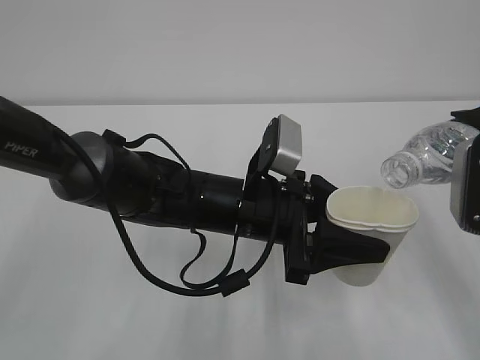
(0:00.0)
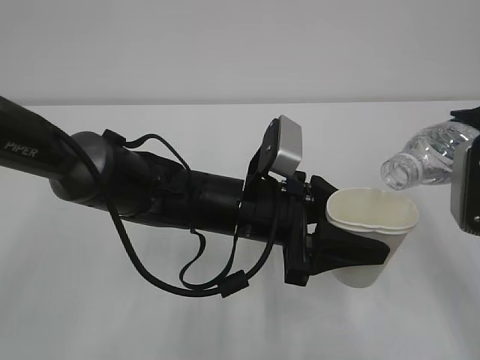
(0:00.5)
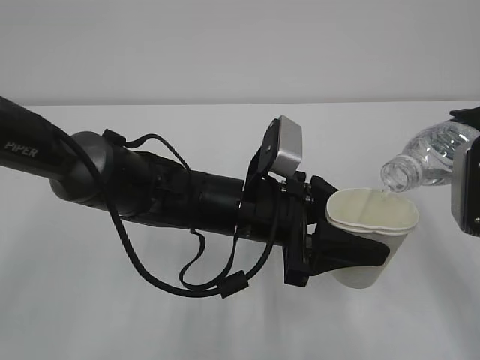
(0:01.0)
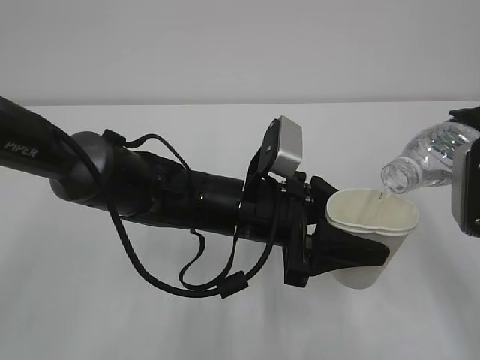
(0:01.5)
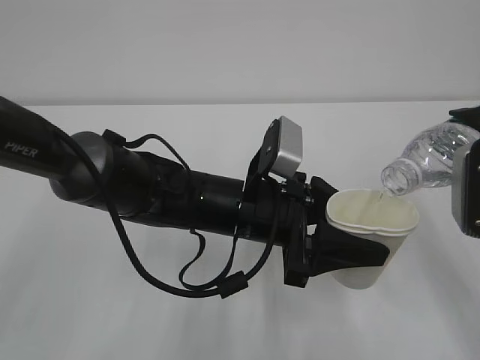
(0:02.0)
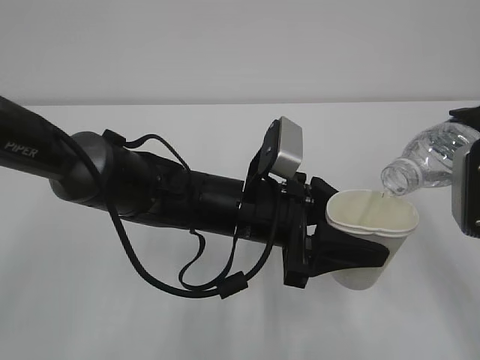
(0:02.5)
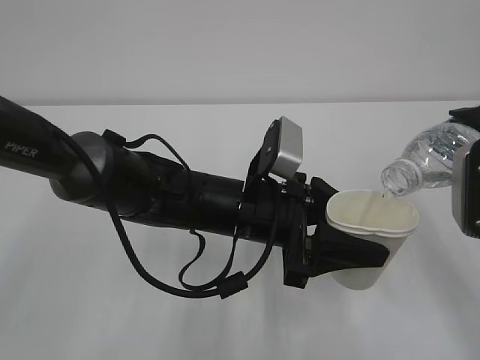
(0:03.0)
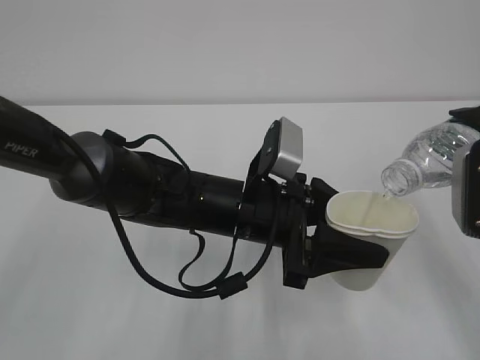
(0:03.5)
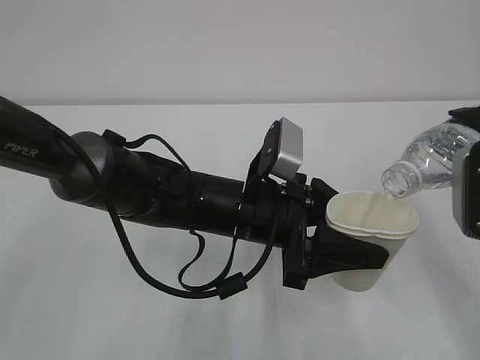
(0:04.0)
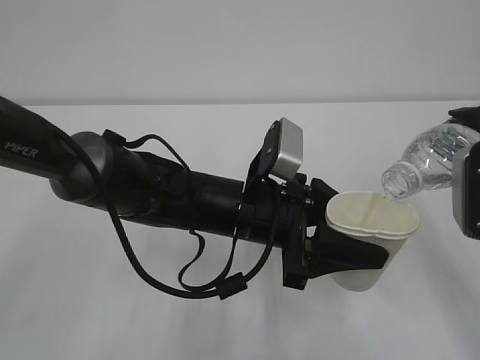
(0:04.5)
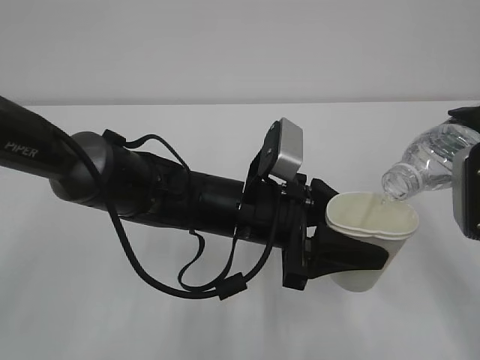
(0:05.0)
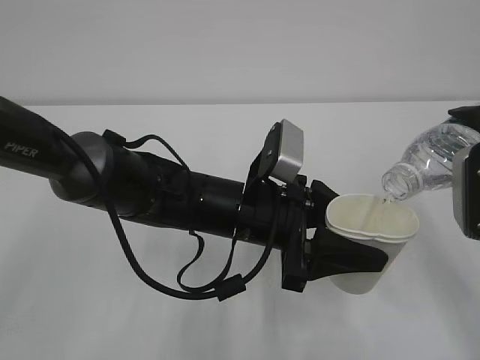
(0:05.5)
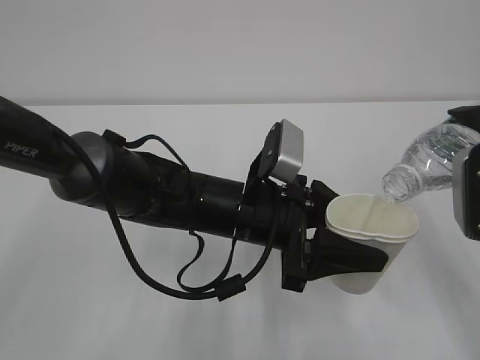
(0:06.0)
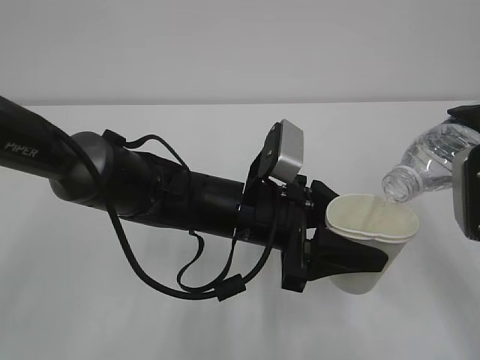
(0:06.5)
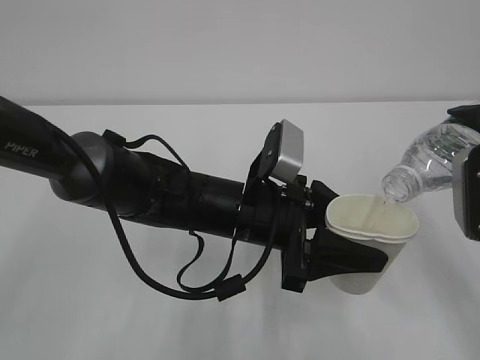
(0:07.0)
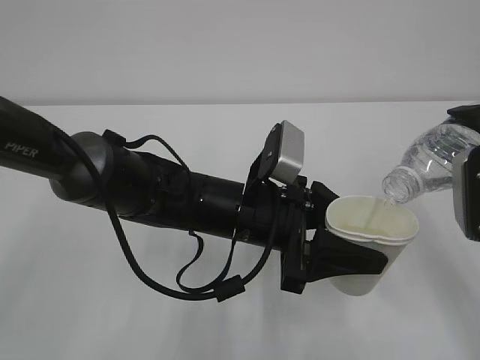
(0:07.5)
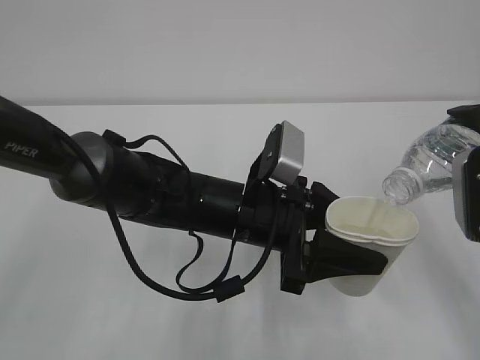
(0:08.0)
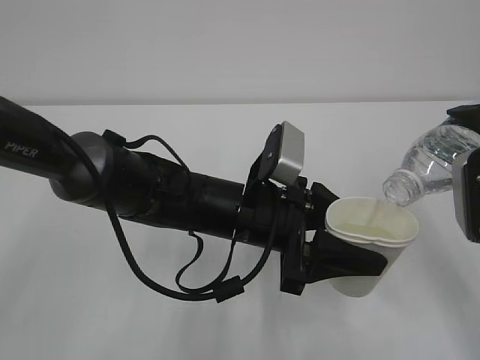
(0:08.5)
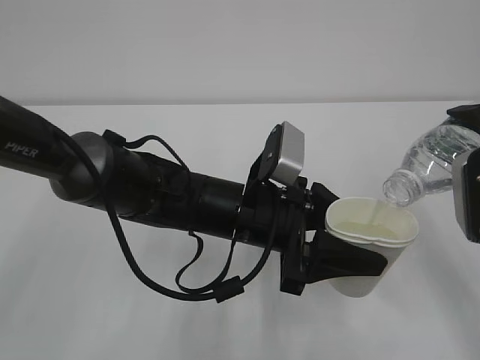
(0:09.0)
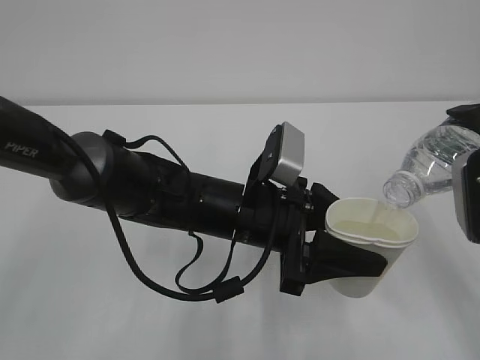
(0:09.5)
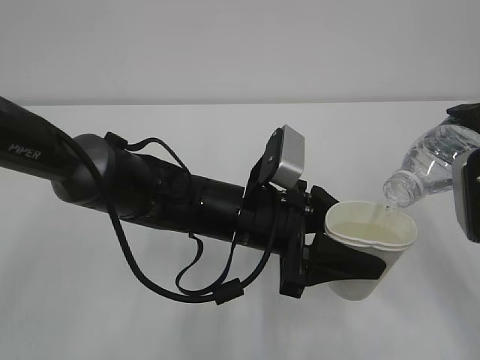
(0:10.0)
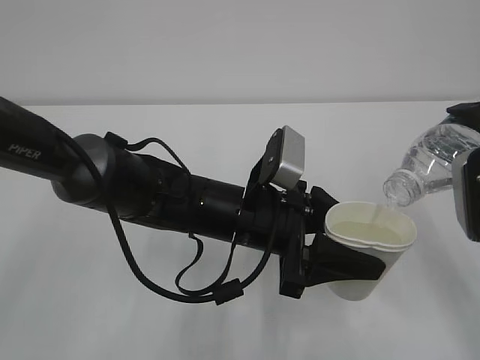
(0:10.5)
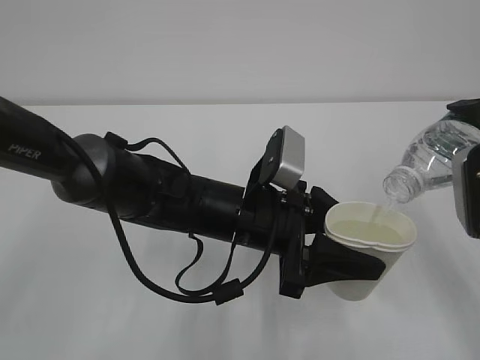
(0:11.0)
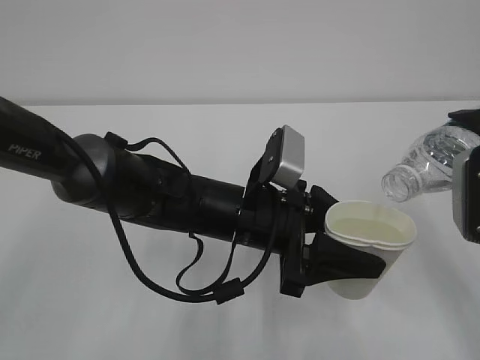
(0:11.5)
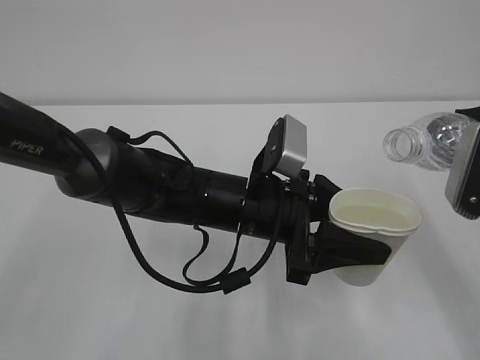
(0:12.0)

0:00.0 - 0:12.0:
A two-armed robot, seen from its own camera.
0:00.0 - 0:02.0: Both grippers stay about where they are.
0:02.0 - 0:06.0: Both grippers stay about where they are.
0:06.0 - 0:10.0: Neither gripper changes place.

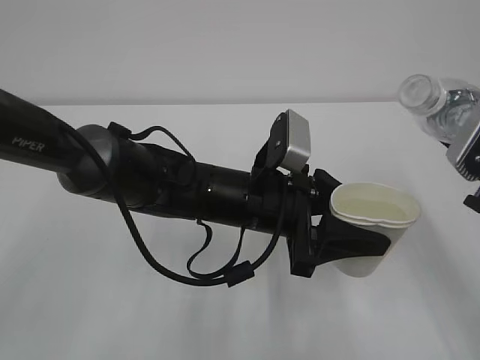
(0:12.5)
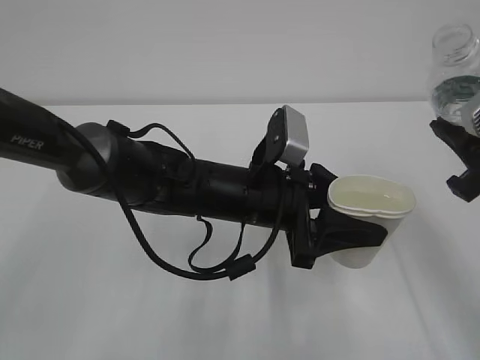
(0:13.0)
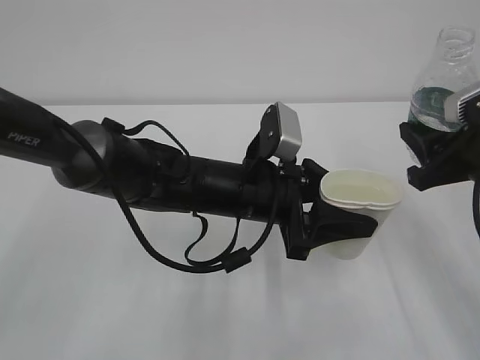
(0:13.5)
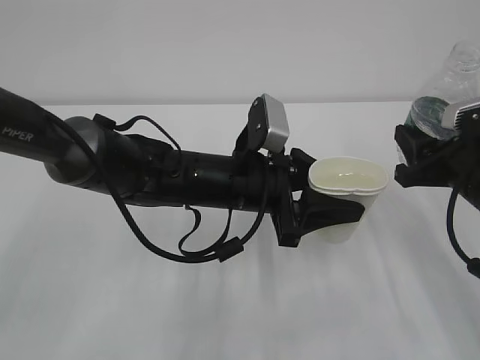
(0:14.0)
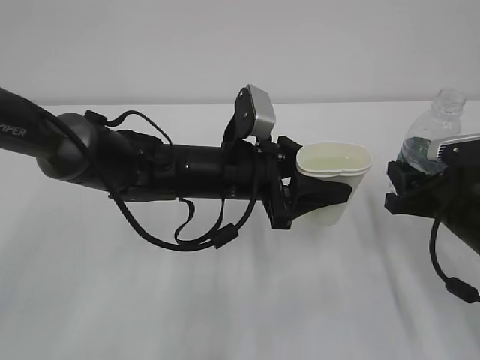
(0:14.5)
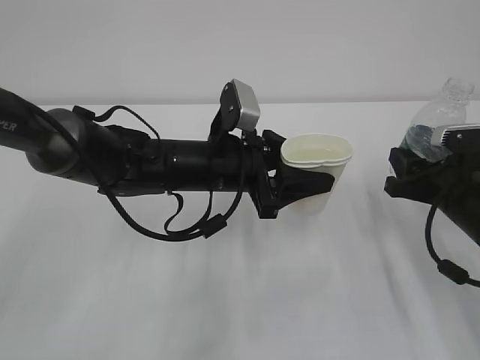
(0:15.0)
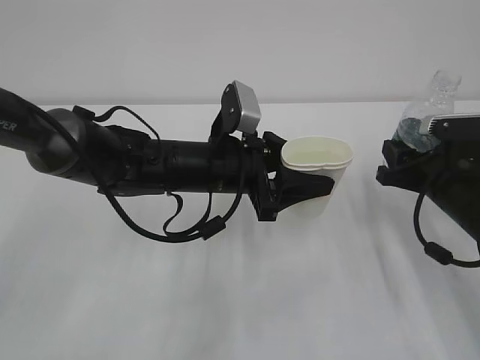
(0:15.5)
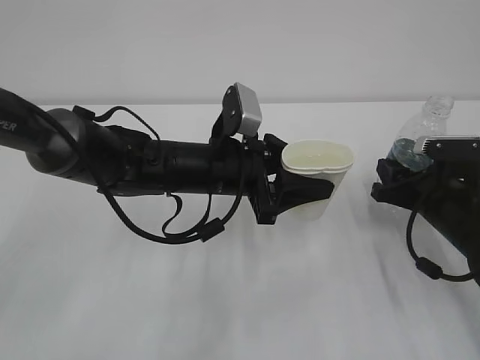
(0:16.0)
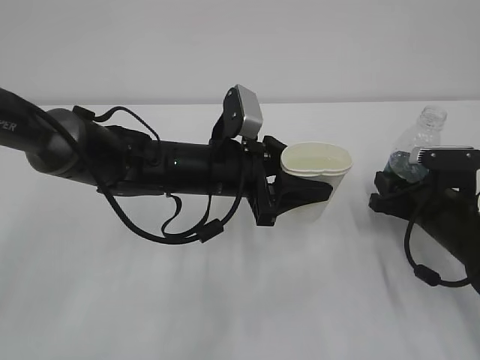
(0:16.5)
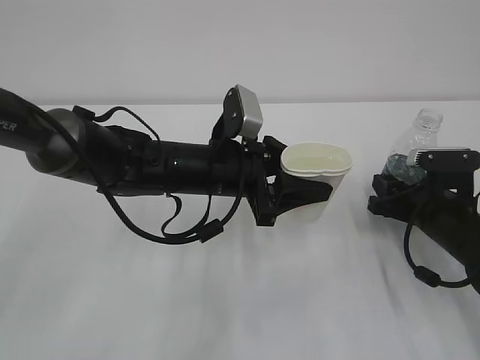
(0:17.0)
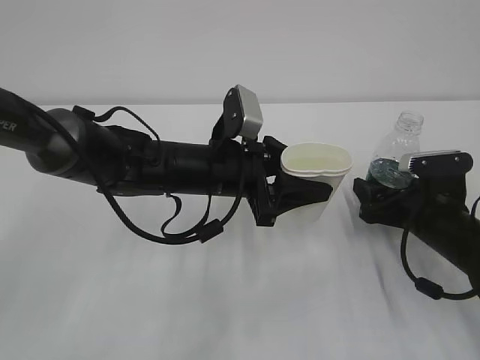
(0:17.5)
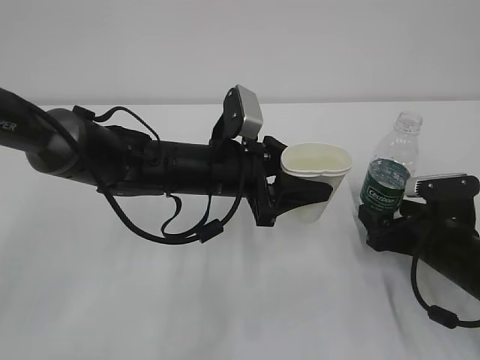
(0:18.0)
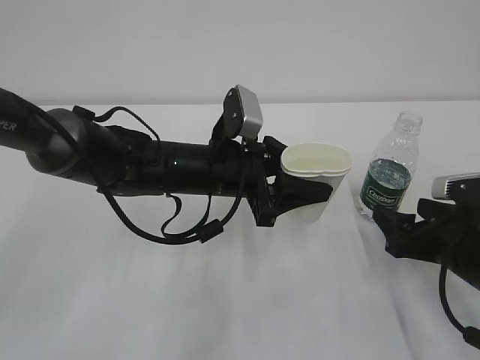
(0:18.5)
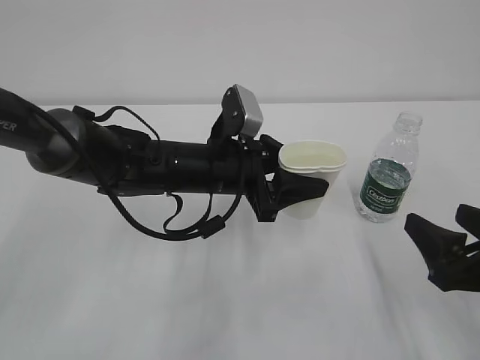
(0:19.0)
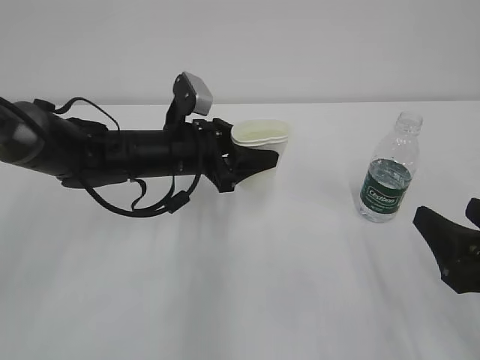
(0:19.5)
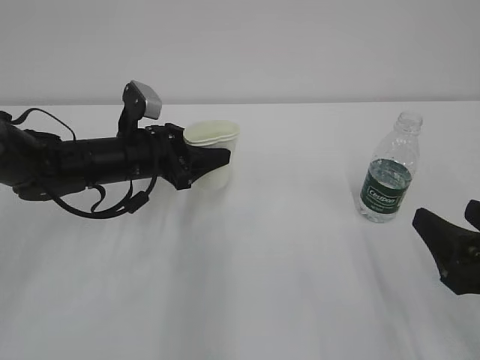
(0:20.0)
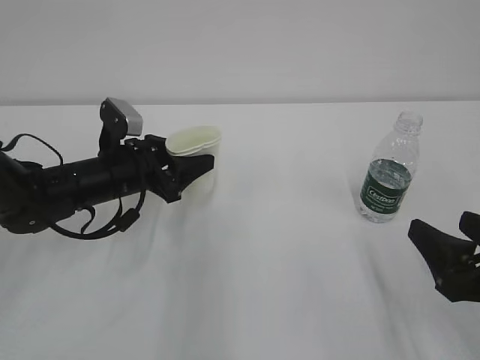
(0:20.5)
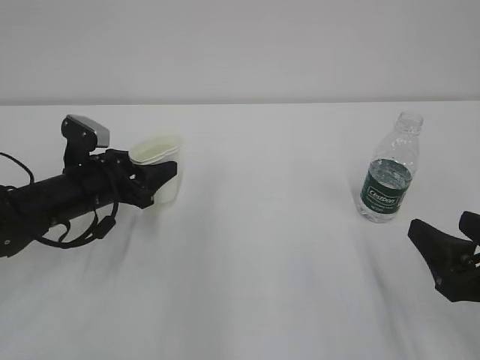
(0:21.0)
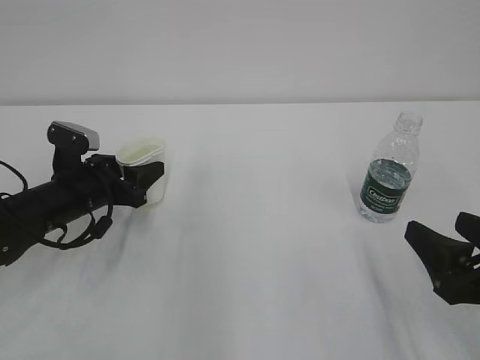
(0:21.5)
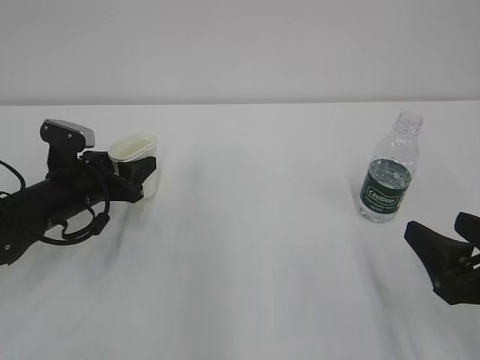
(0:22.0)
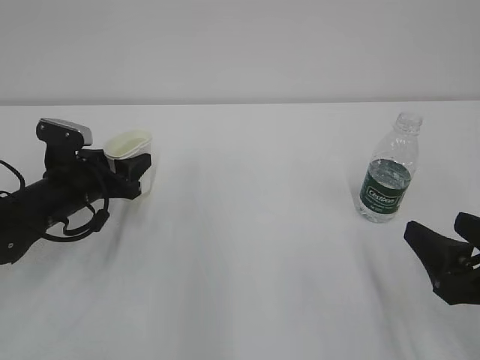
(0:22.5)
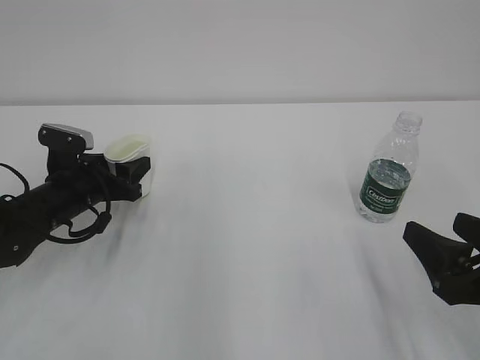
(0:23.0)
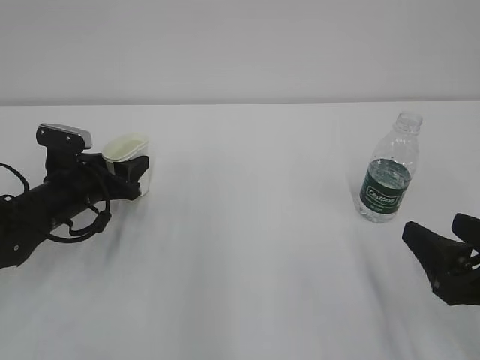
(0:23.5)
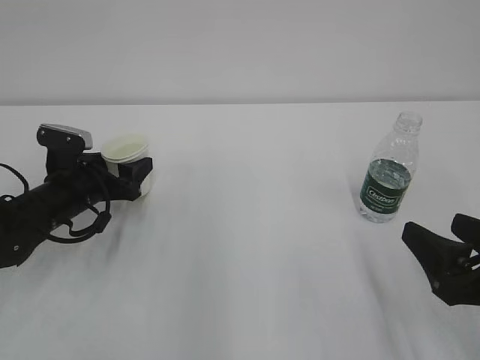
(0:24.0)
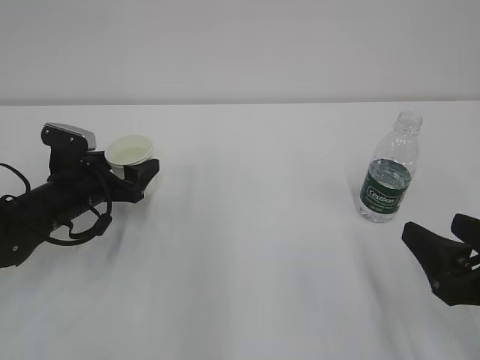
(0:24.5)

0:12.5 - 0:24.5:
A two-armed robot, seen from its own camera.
0:12.5 - 0:14.5: The right gripper moves downward and forward, about 15 cm.
0:14.5 - 0:16.5: The right gripper moves some 5 cm.
0:16.5 - 0:18.5: The right gripper is displaced backward by approximately 5 cm, and opens.
0:18.5 - 0:20.5: The right gripper is displaced backward and upward by about 10 cm. The left gripper travels to the left by about 15 cm.
0:20.5 - 0:22.5: The left gripper goes approximately 5 cm to the left.
0:22.5 - 0:24.5: The left gripper opens.

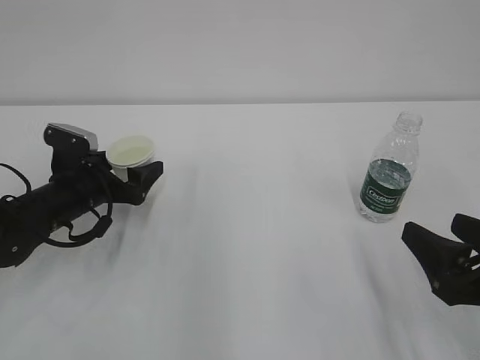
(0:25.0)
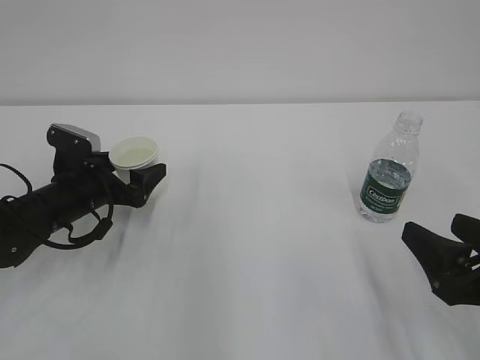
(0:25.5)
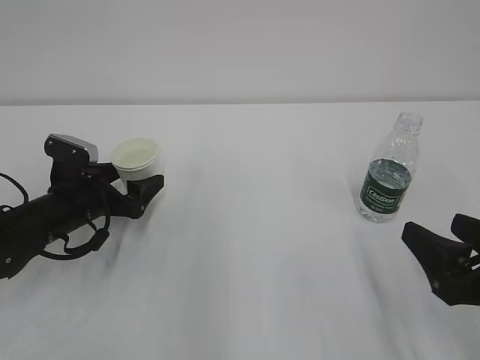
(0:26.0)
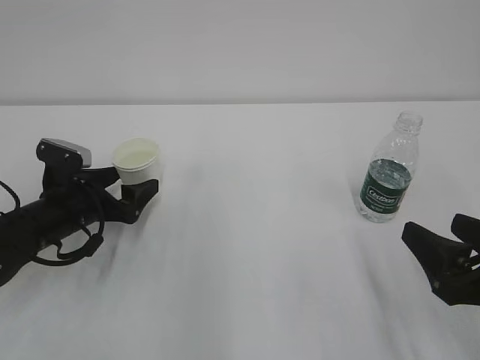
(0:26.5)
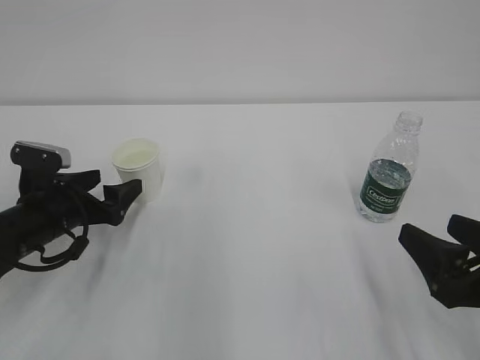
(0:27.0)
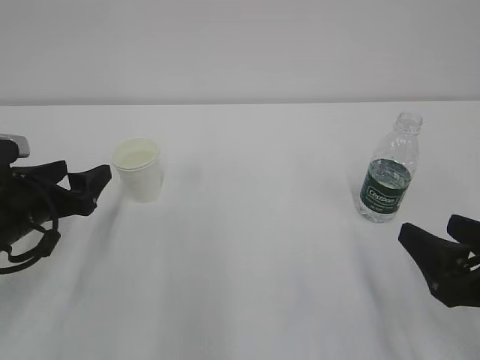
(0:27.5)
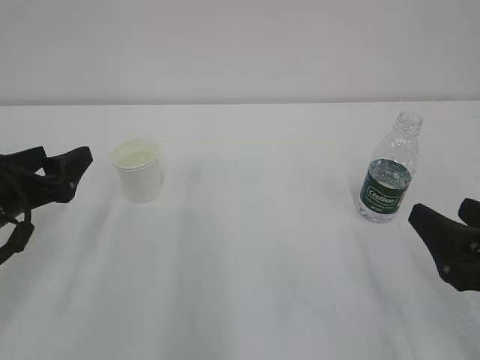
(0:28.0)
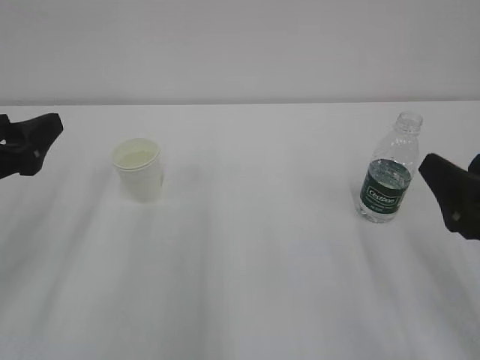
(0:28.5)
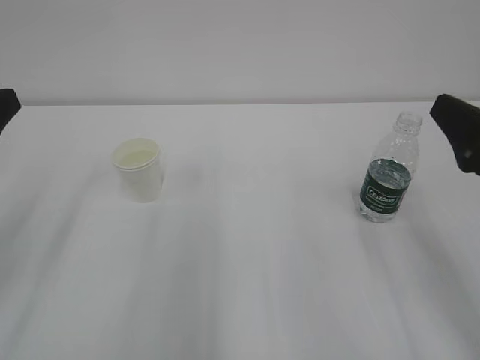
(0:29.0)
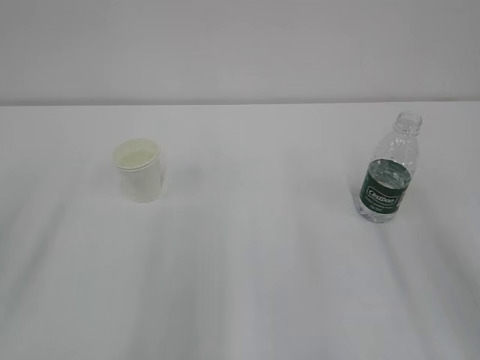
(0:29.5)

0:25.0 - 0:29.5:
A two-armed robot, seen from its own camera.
0:25.0 - 0:27.0: The grippers make only small movements.
0:27.0 - 0:29.5: The left gripper heads upward and backward, covering roughly 25 cm, and closes its fingers. Meanwhile the right gripper goes approximately 15 cm upward.
